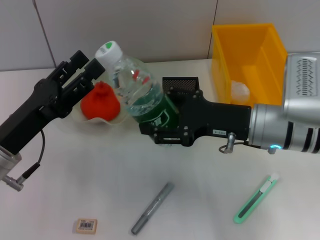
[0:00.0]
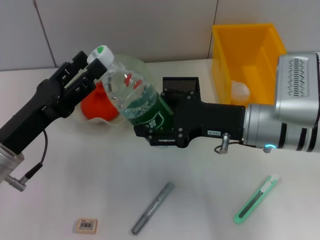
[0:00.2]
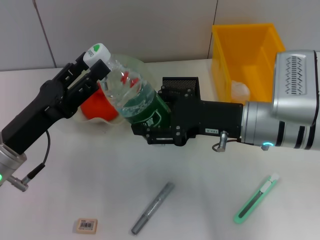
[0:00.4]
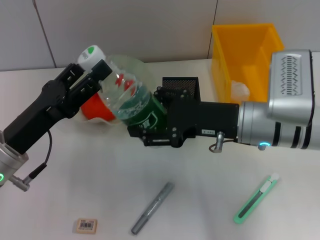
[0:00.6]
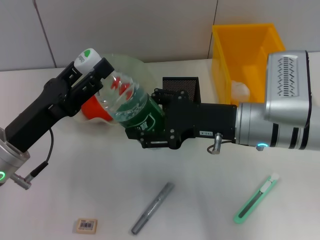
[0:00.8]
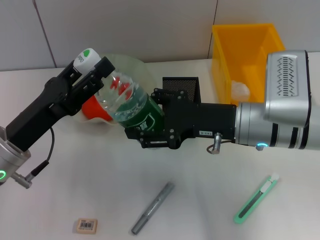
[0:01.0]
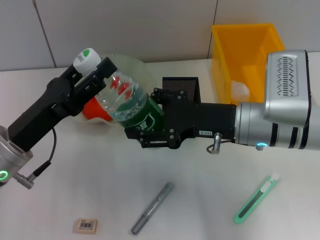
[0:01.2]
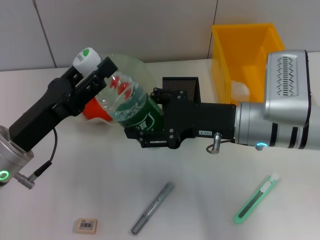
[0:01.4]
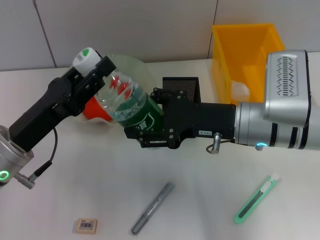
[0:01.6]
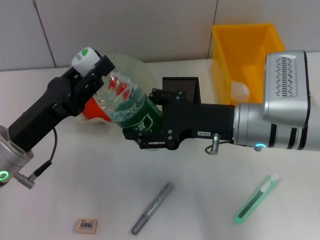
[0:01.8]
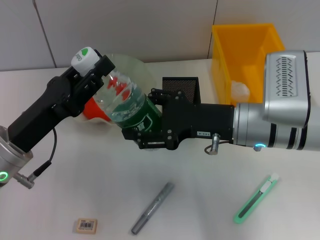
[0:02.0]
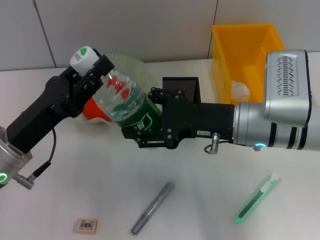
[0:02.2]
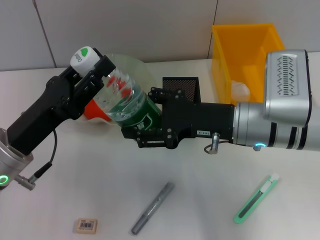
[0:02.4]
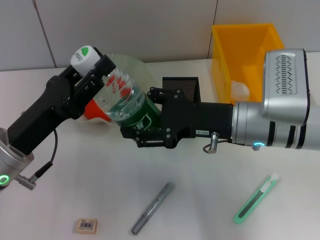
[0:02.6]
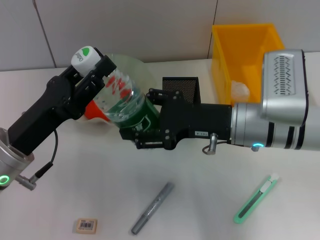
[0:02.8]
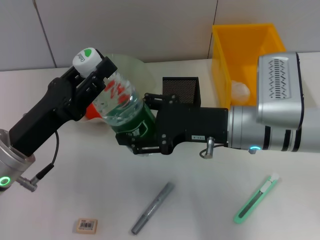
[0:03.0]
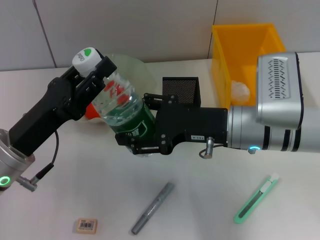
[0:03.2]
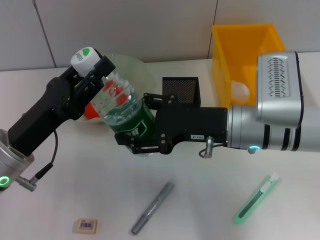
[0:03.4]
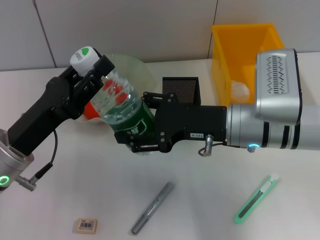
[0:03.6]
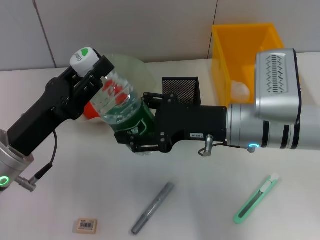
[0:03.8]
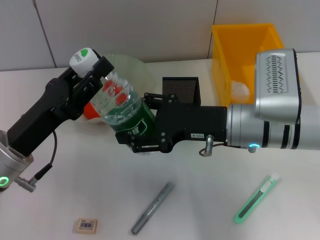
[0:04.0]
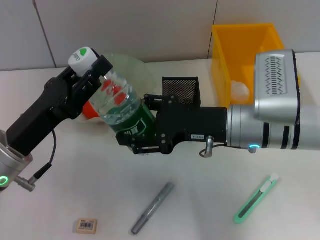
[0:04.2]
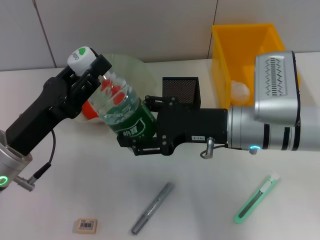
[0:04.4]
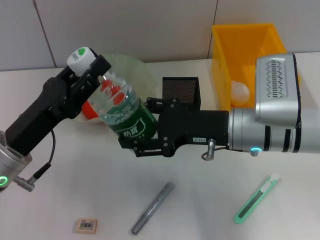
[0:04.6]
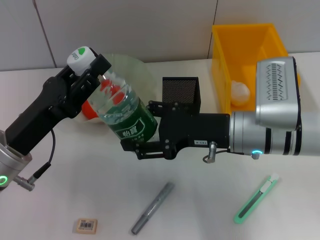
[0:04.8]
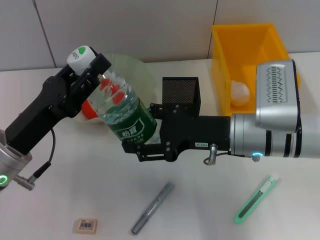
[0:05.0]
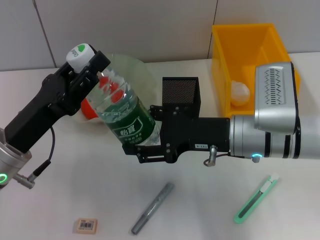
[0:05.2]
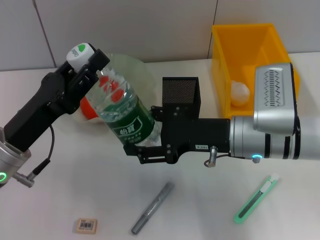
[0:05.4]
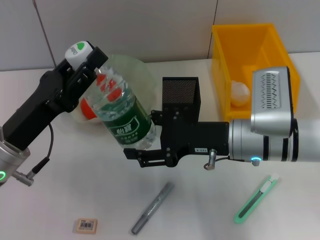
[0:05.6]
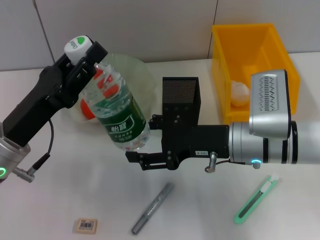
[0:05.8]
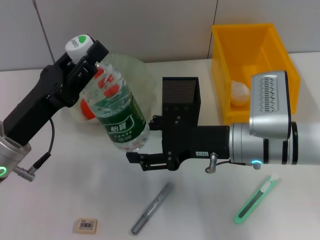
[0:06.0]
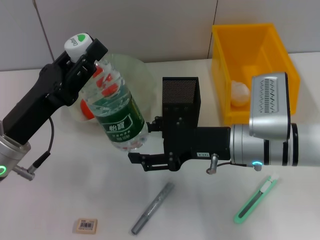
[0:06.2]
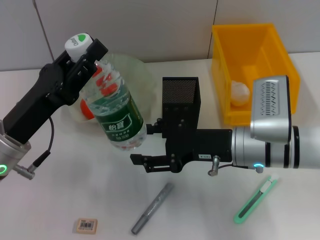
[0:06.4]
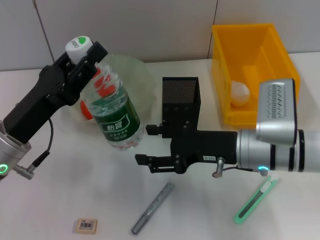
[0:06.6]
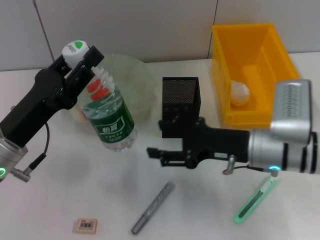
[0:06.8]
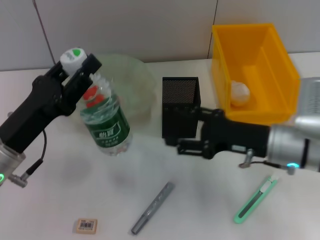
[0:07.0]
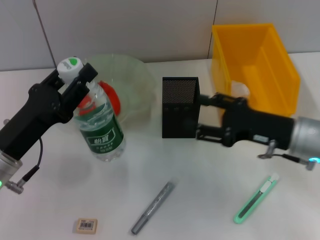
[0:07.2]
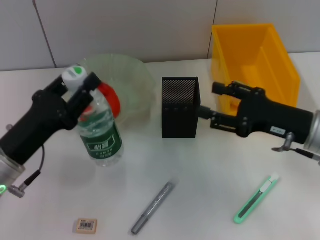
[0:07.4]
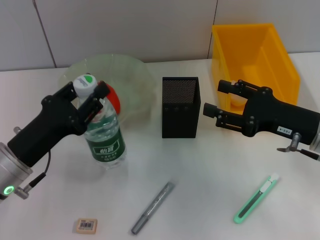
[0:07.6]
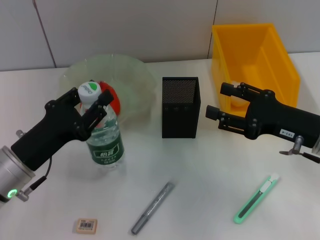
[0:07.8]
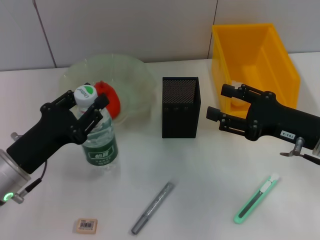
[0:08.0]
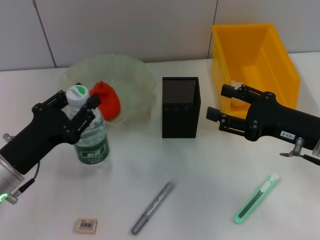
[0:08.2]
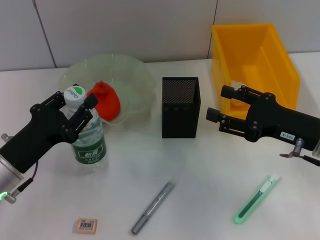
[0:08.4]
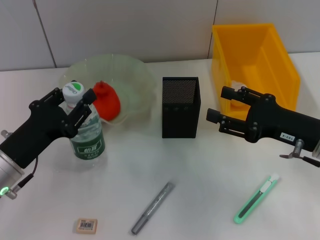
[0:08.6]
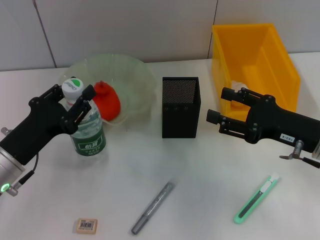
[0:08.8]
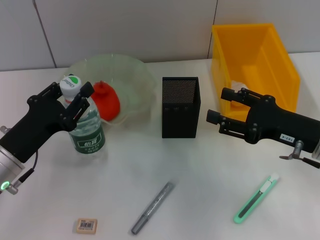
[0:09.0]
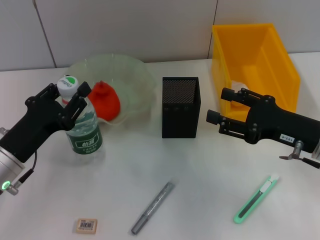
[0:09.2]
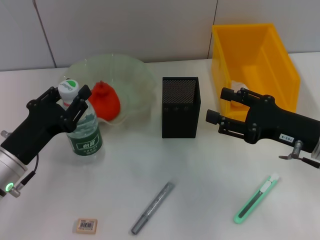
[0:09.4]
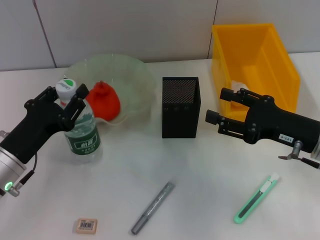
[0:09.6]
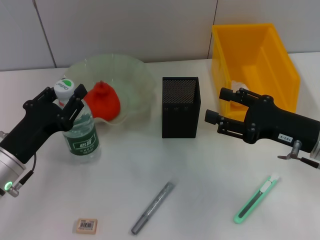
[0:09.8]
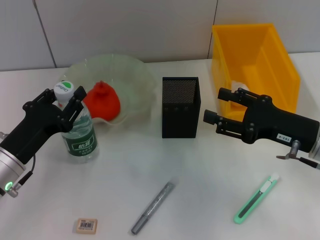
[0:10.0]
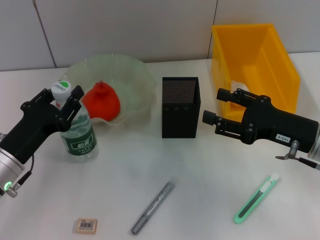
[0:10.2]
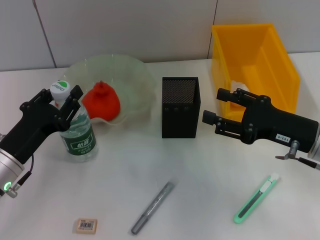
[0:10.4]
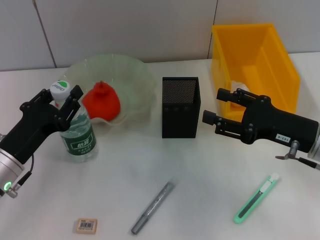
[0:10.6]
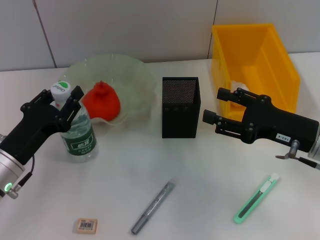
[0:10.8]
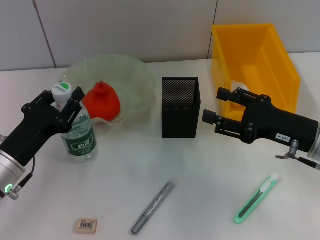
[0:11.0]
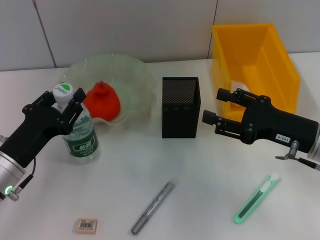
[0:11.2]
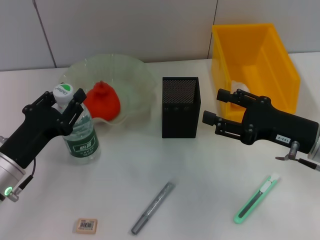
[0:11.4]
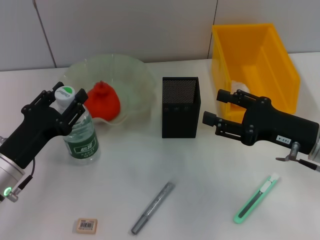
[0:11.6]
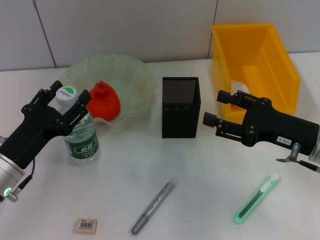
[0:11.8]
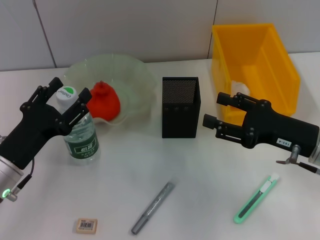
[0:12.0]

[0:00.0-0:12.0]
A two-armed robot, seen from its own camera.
Step, 0:00.0 to 0:05.6: Pass the water bottle from the right hand to the left hand.
Step, 0:05.8 to 0:11.6: Place the water bottle on the table with the left hand.
0:00.0 to 0:01.6: The grippers make only small movements.
0:01.6 to 0:03.0: The left gripper closes its fingers.
0:03.0 to 0:04.4: The two grippers keep their place.
0:06.0 to 0:07.6: The right gripper heads to the right, covering about 10 cm.
0:07.6 to 0:10.4: The grippers move only a little.
0:10.4 to 0:12.0: The left gripper opens.

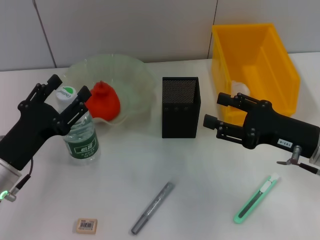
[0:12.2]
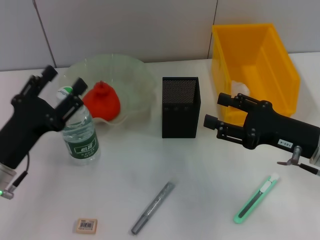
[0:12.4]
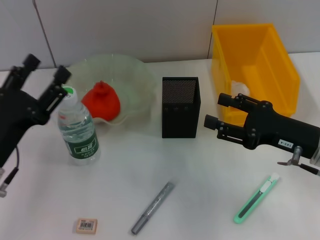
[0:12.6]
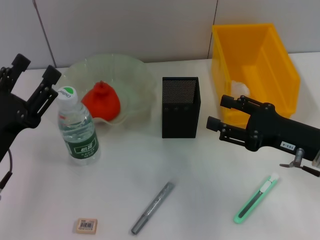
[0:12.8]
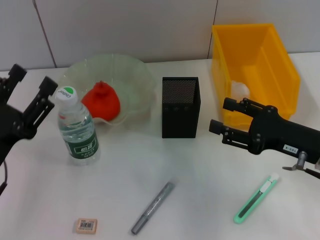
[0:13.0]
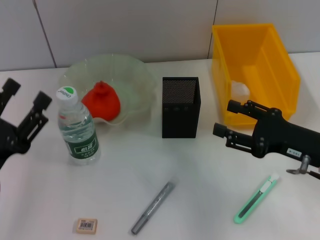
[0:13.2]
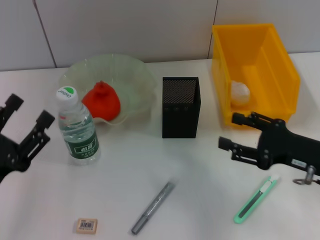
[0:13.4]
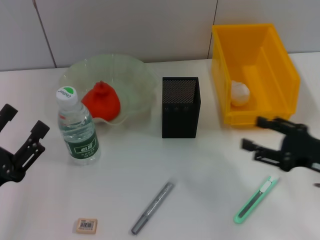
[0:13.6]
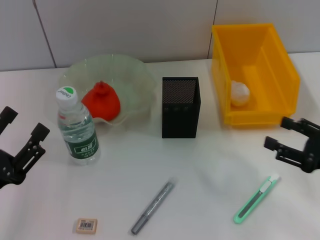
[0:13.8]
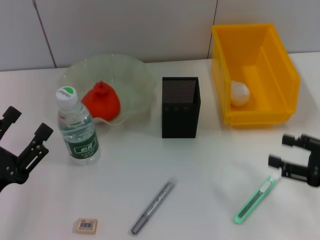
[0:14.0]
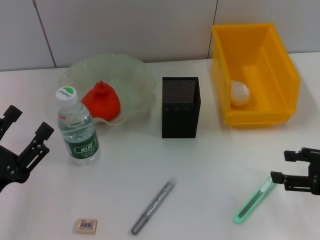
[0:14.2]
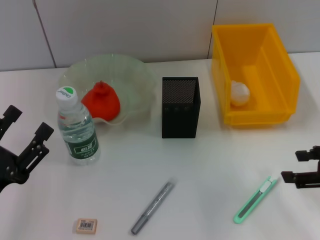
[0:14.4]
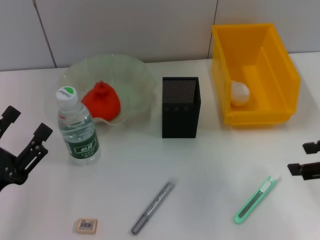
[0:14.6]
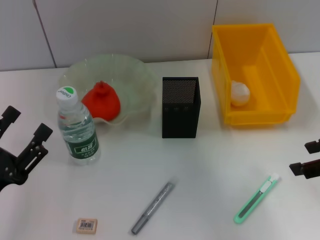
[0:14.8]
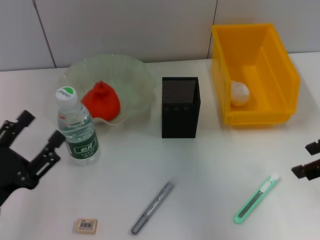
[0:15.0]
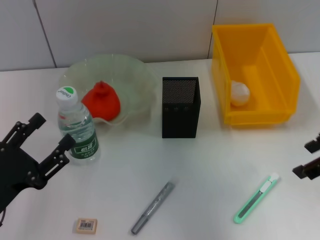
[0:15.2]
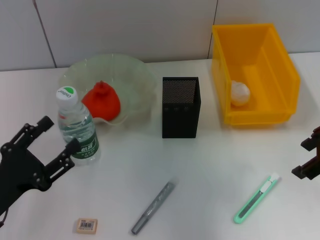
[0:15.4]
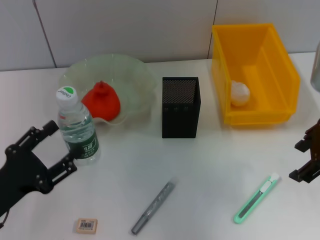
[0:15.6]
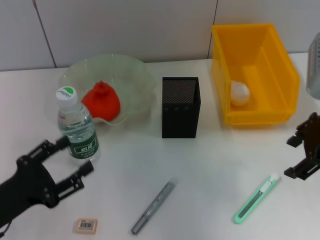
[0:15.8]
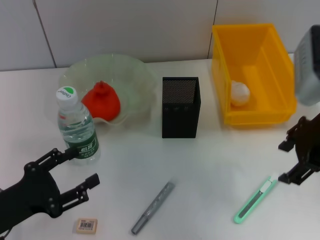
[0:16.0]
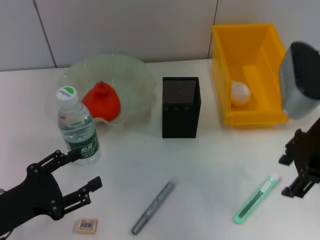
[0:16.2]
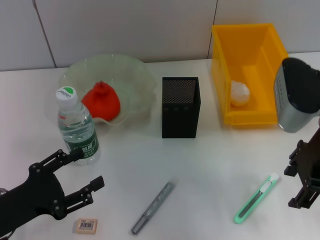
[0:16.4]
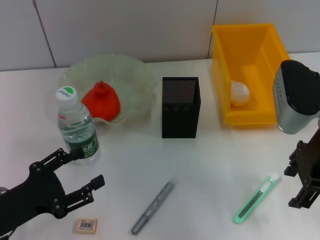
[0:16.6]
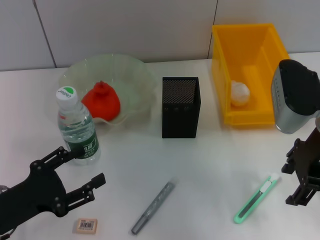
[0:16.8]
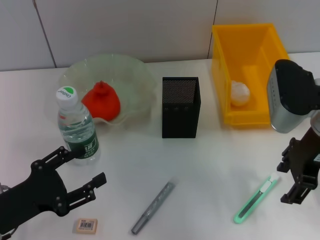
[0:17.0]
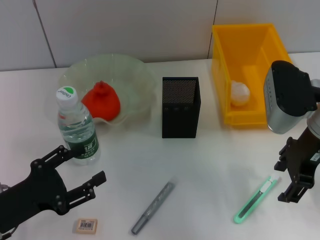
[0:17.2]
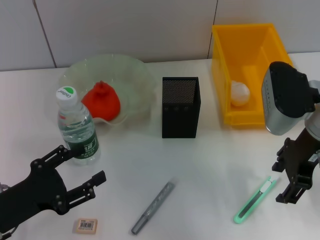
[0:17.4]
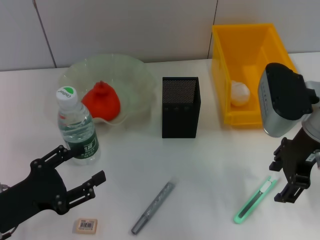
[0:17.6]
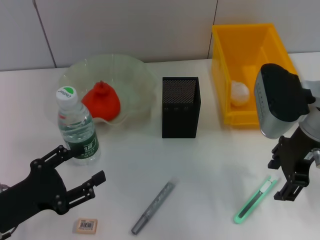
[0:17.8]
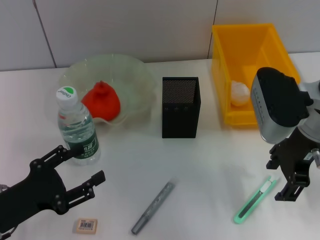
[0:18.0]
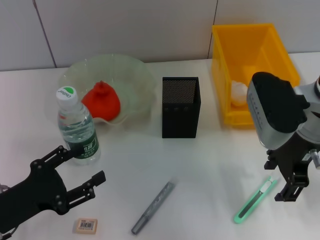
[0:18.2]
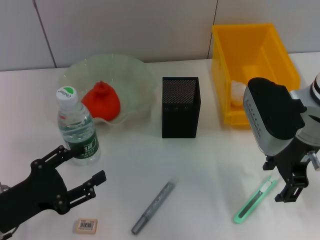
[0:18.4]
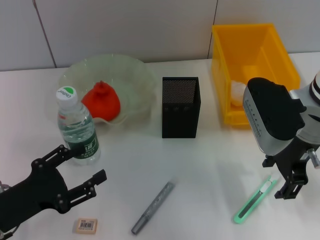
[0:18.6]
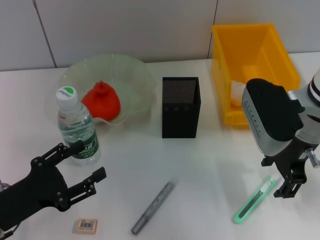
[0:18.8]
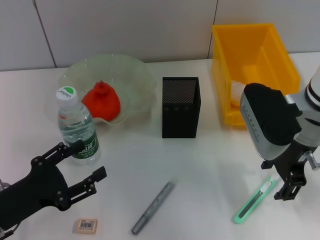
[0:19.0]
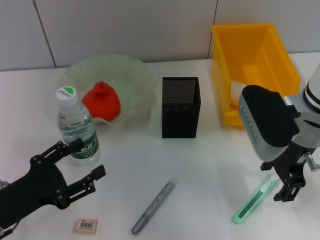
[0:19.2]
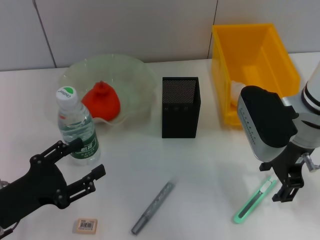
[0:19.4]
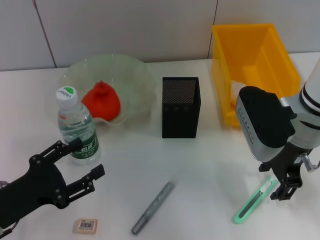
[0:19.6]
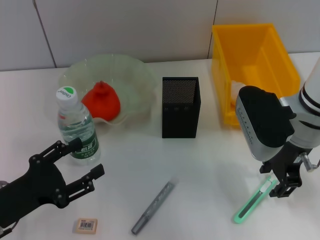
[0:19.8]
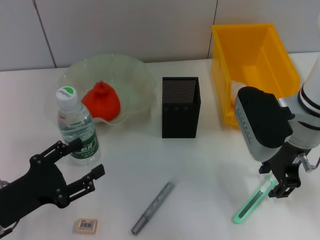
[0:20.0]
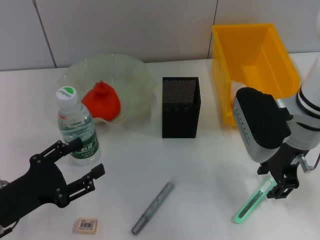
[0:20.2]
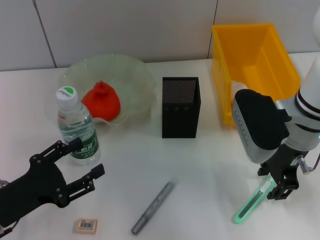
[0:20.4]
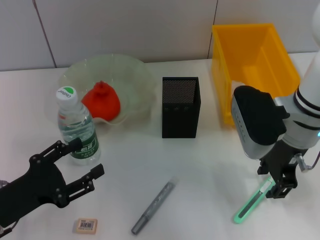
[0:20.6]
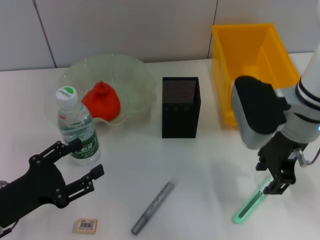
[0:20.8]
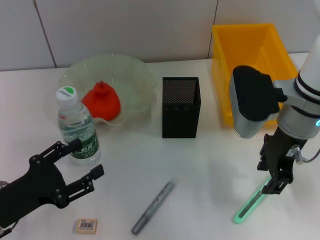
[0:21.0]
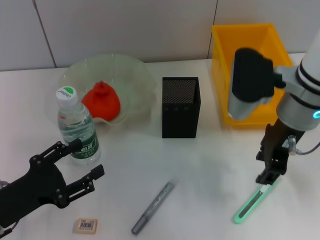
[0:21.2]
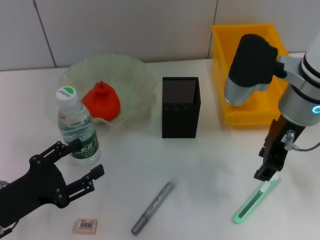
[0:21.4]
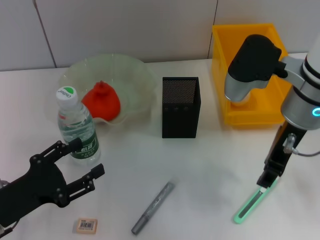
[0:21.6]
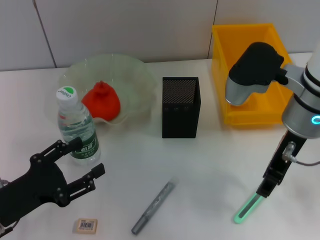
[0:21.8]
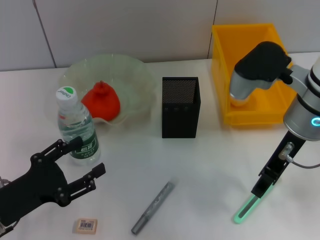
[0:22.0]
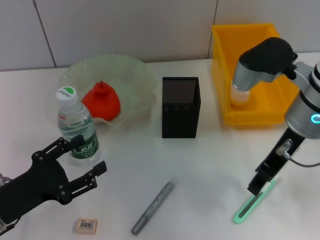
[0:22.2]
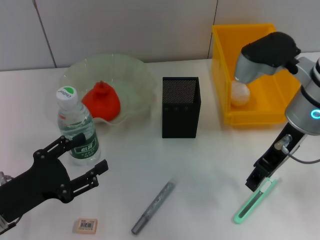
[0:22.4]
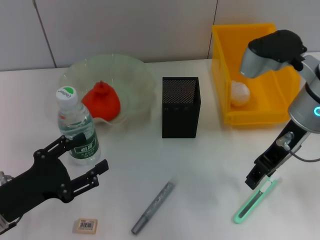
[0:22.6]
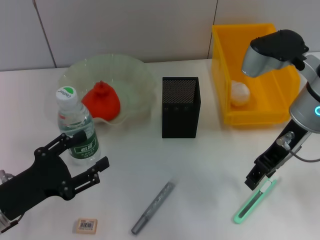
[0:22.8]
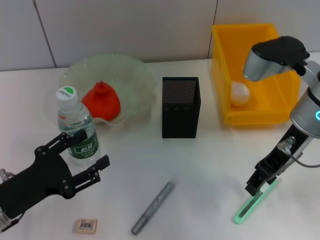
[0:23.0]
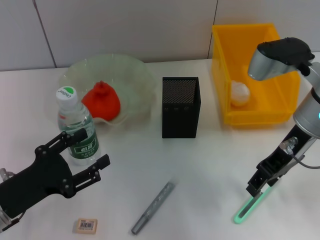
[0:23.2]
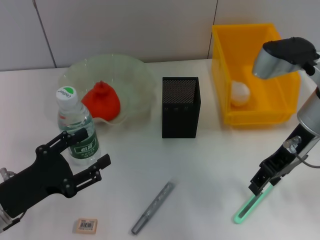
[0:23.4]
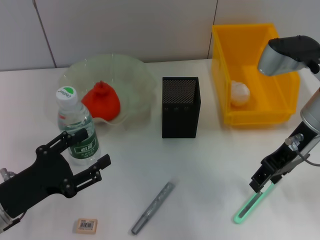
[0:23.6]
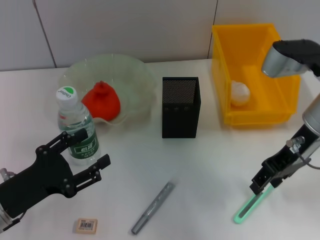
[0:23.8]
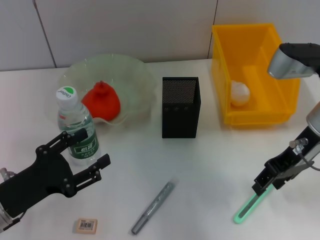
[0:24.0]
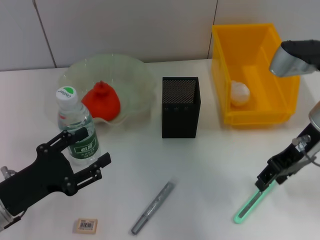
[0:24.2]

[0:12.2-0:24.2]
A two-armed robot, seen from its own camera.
0:12.2 to 0:13.8: The right gripper is displaced to the right and backward by roughly 10 cm, while the left gripper moves backward, some 10 cm.
0:13.8 to 0:15.2: The right gripper is displaced upward and forward by about 15 cm.
0:15.2 to 0:16.6: The right gripper moves to the left, some 5 cm.
0:16.6 to 0:19.8: The grippers make only small movements.
0:22.6 to 0:24.2: The grippers stay close to where they were, moving slightly.
